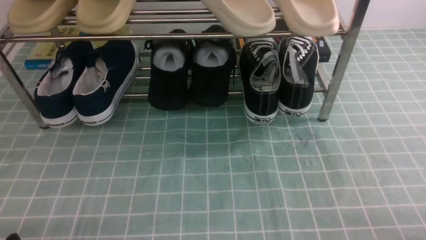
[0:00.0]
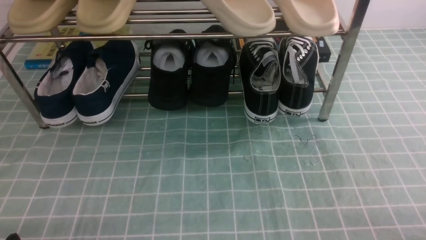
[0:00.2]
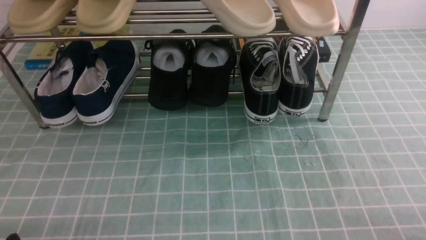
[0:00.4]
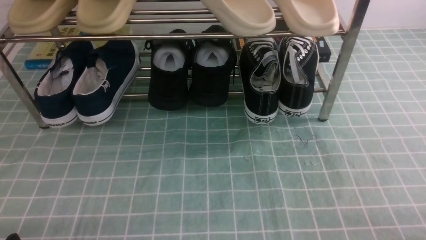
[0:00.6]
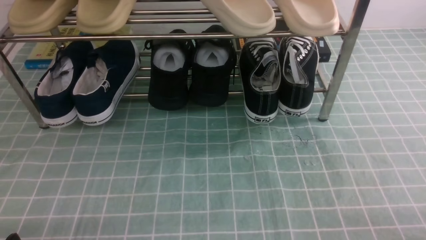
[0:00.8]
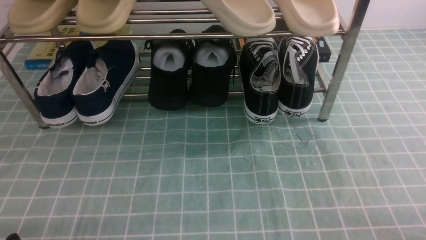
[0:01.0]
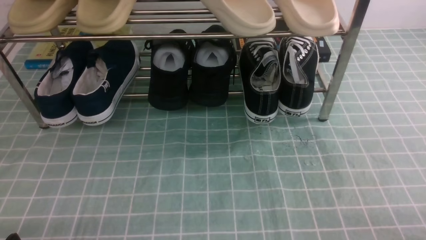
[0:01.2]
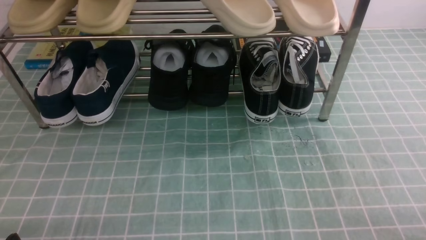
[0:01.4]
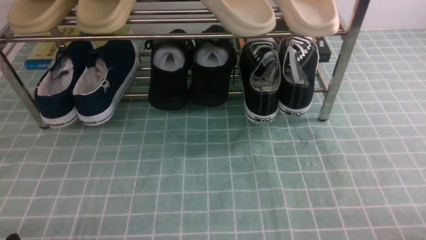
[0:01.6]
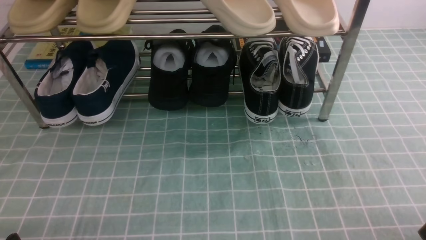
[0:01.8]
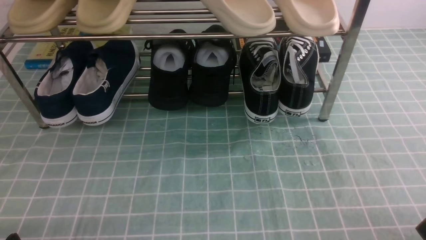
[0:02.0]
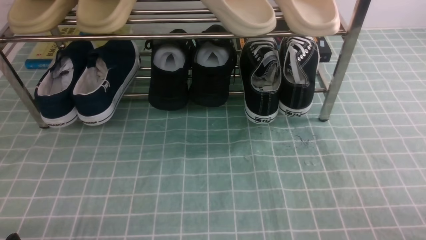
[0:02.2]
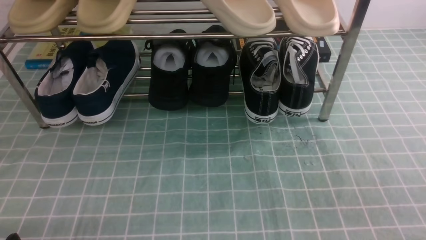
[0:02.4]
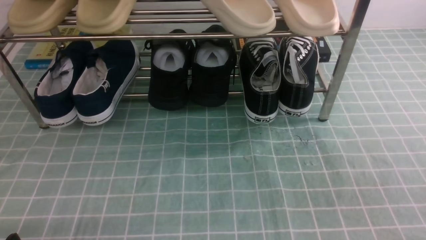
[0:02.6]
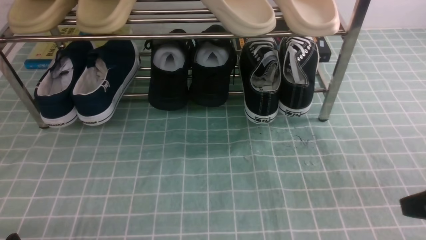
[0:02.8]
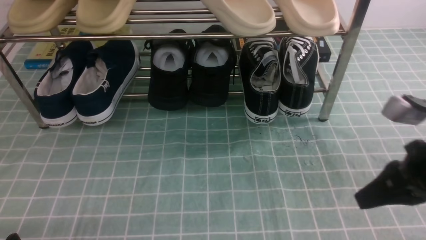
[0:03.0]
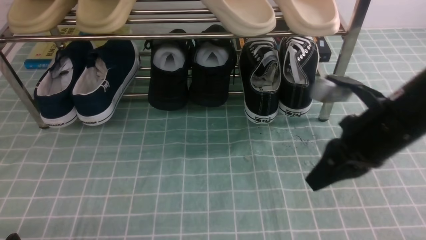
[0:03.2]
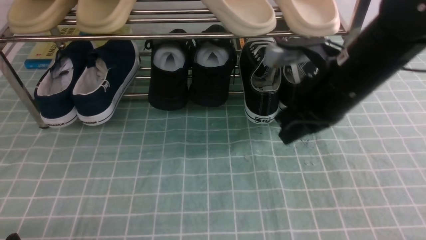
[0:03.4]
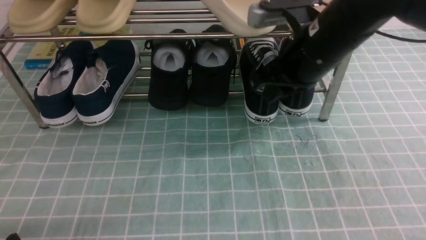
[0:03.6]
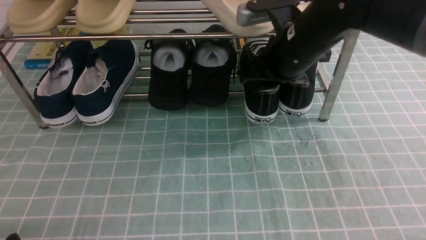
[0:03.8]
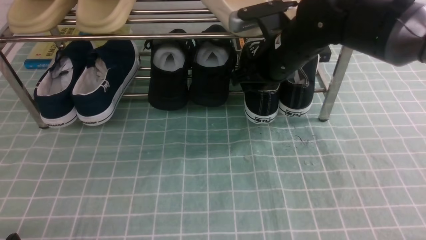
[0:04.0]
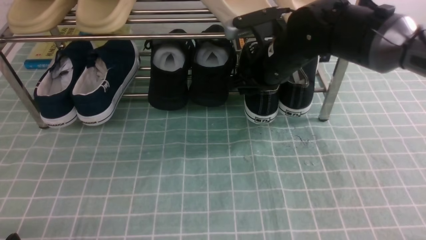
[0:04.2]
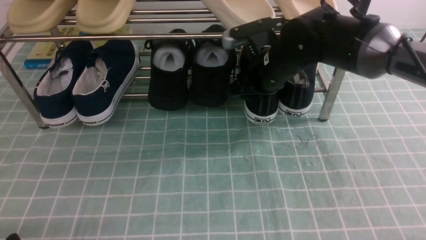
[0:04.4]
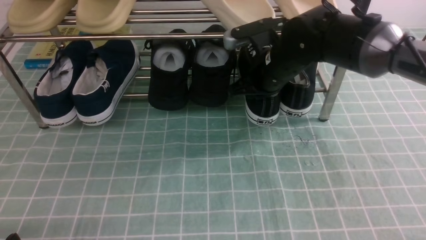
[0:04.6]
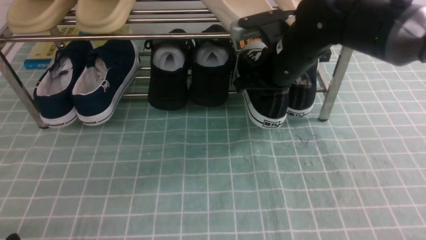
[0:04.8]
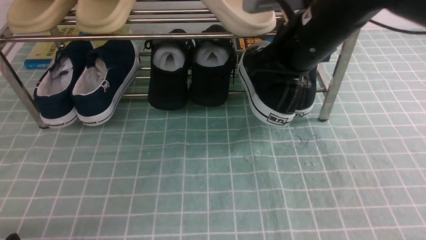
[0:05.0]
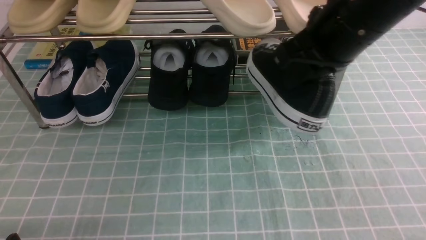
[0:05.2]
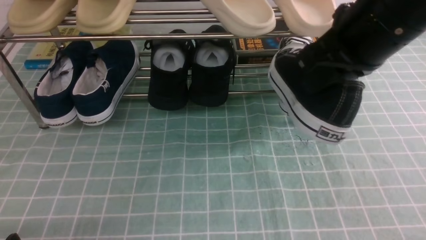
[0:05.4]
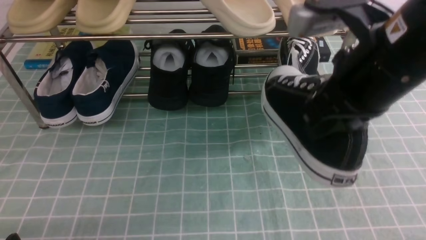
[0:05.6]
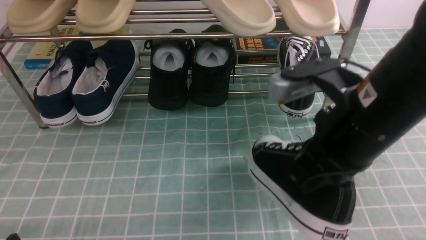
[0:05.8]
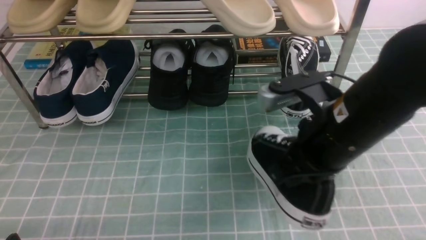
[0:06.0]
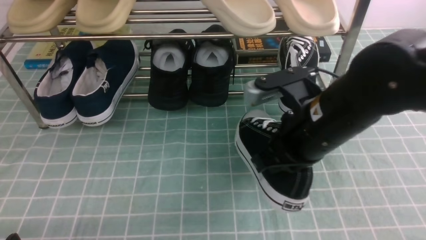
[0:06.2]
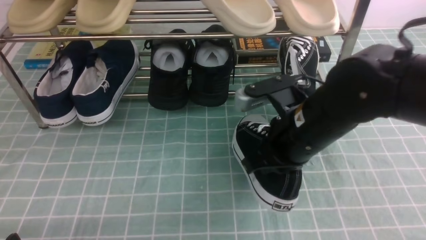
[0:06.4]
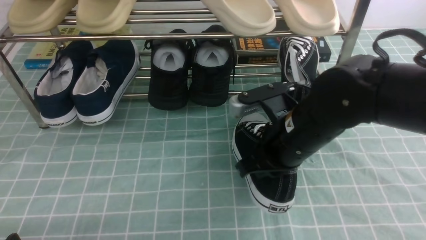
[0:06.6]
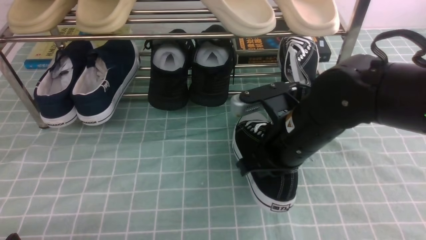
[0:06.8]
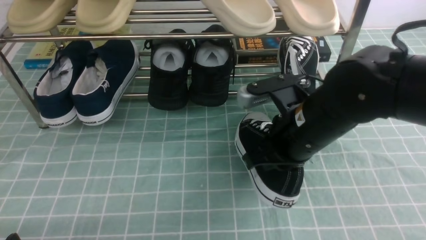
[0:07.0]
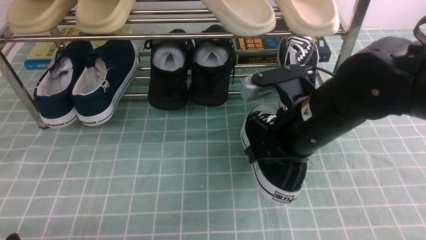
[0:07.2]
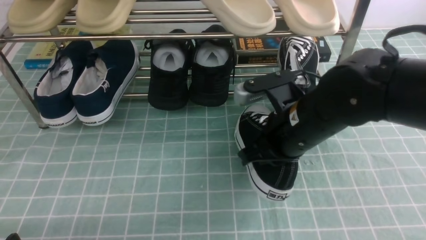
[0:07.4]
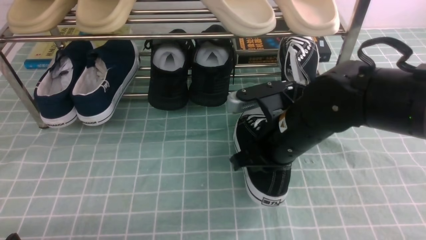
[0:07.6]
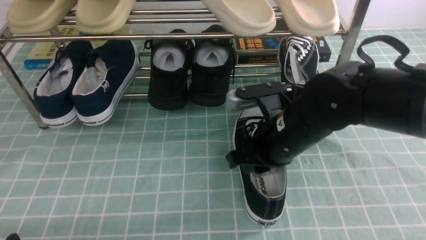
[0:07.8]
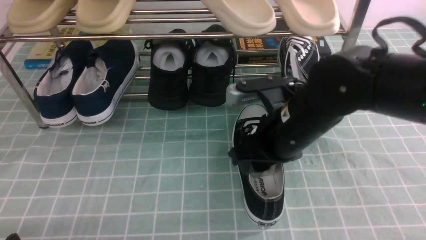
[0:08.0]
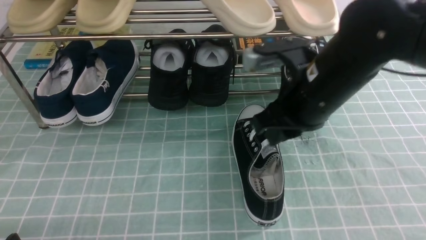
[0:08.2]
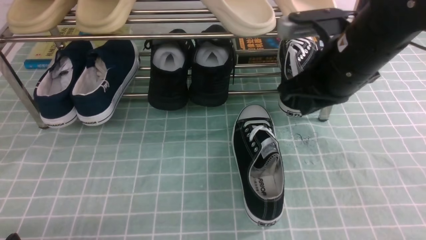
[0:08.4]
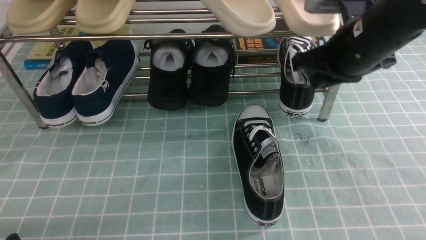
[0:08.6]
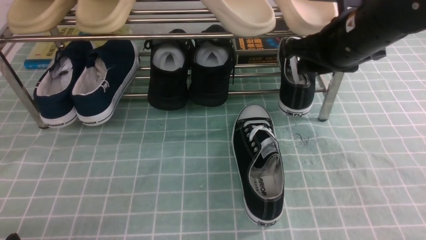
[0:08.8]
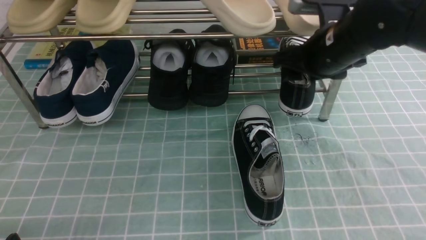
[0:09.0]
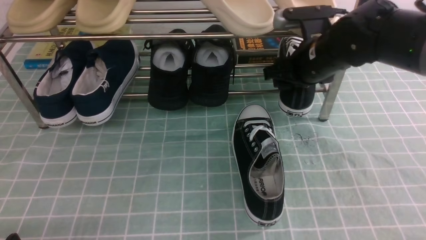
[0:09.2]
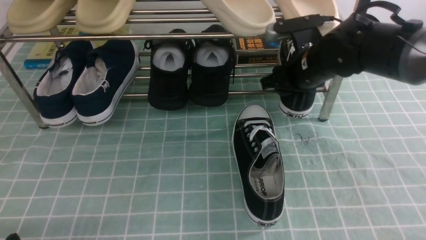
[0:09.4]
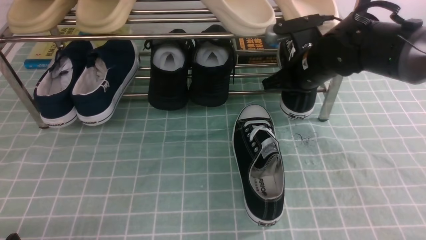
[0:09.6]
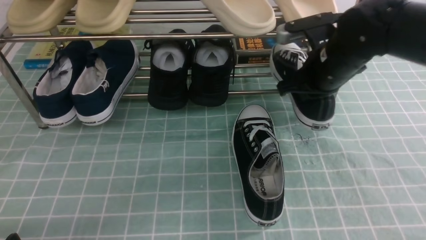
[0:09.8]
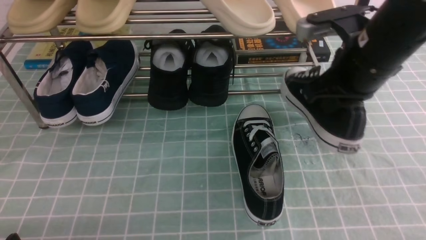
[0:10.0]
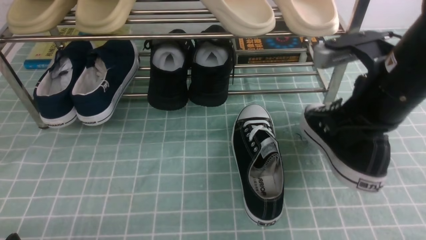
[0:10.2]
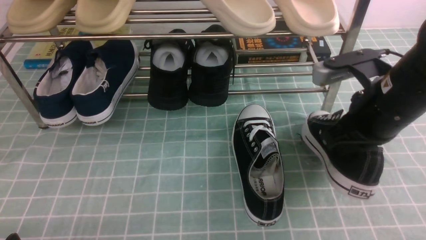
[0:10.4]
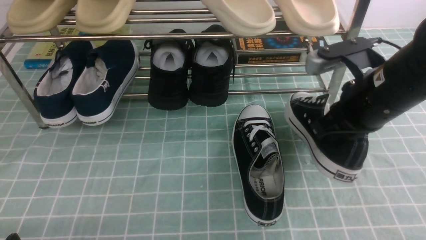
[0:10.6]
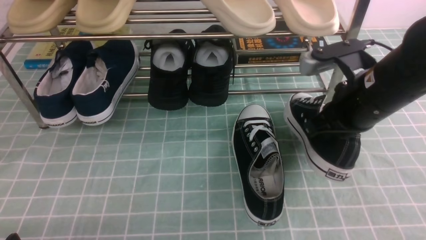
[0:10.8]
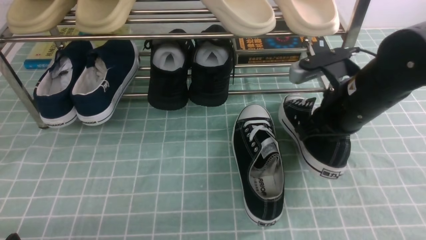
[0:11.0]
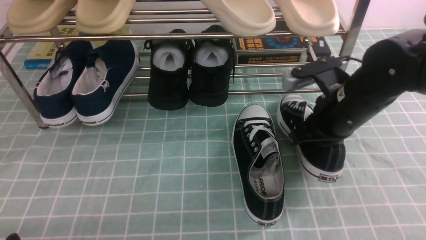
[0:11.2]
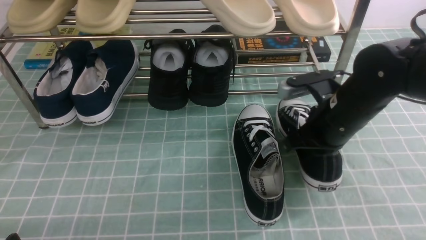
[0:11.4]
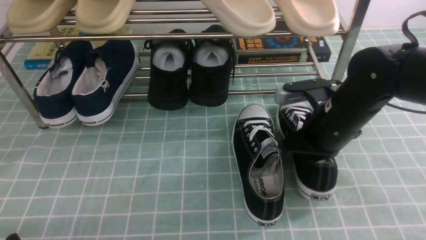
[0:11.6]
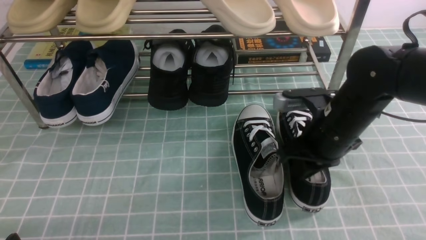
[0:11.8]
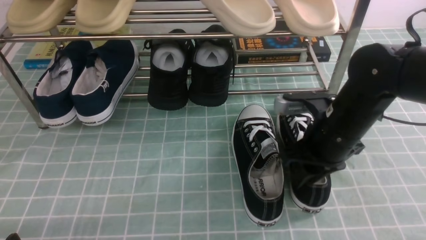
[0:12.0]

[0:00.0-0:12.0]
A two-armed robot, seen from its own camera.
Step, 0:00.0 to 0:04.6: use the right arm to clamp a shoe on the right side of the shoe rack.
Step, 0:04.8 to 0:08.0: use the right arm to take out the clamped shoe from the shoe rack and put it down.
Step, 0:08.2 to 0:09.6: use the right arm to clamp a shoe on the right side of the shoe rack.
Step, 0:09.8 to 0:11.8: use the right arm to take out the clamped shoe from the shoe rack and put it down.
0:01.6 to 0:03.0: The right gripper heads forward, upward and to the left, covering roughly 20 cm, and closes.
0:03.0 to 0:04.4: The right gripper travels forward and to the left by about 25 cm, and opens.
0:04.4 to 0:06.0: The right gripper shifts about 15 cm backward, and closes.
0:06.0 to 0:07.6: The right gripper travels downward by roughly 5 cm.
0:07.6 to 0:09.0: The right gripper goes some 15 cm forward, to the right and upward, and opens its fingers.
0:09.0 to 0:10.4: The right gripper moves backward, some 10 cm, and closes.
0:10.4 to 0:12.0: The right gripper is displaced downward by about 5 cm, and opens its fingers.

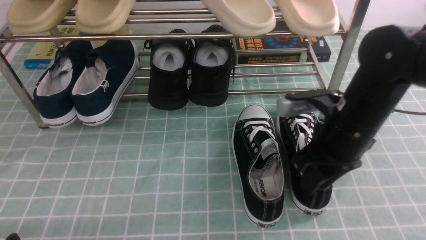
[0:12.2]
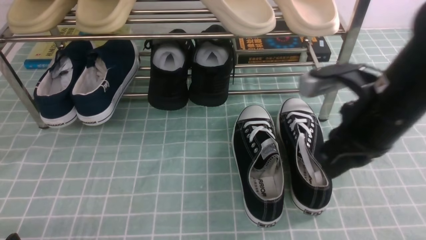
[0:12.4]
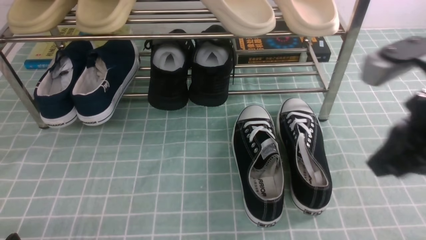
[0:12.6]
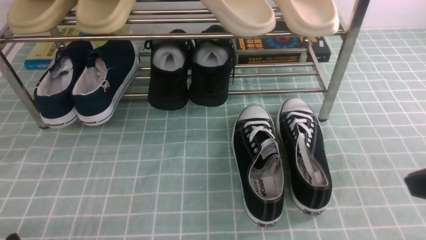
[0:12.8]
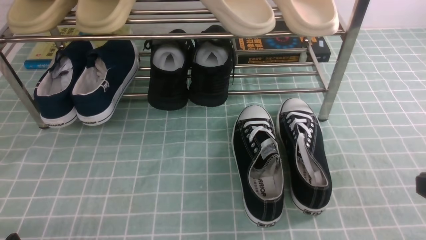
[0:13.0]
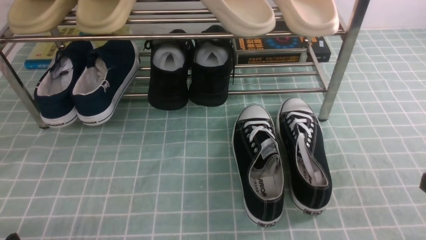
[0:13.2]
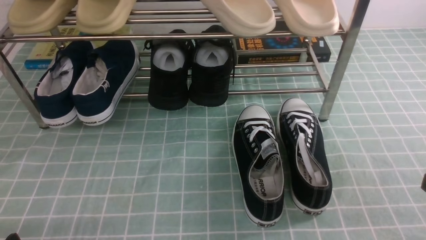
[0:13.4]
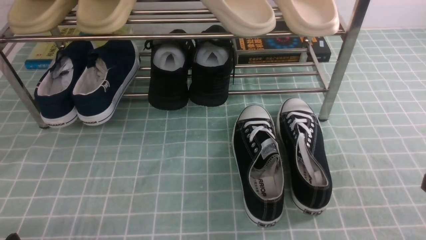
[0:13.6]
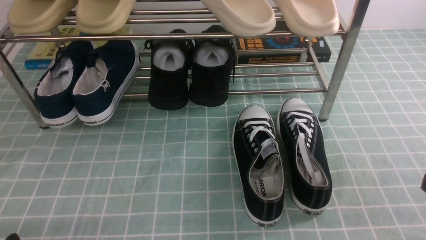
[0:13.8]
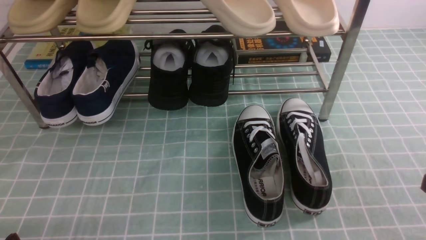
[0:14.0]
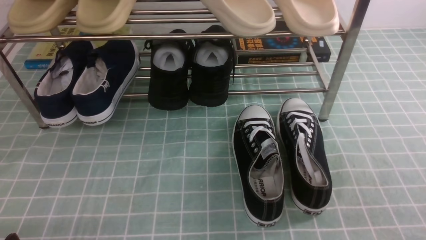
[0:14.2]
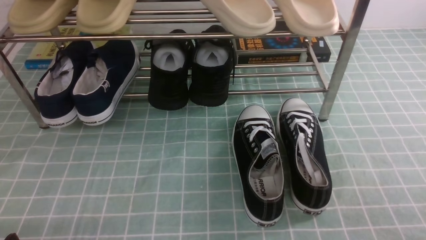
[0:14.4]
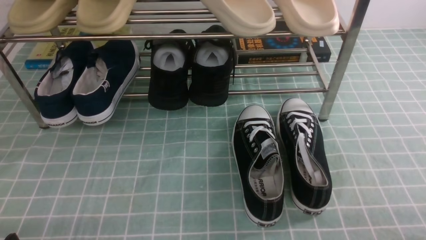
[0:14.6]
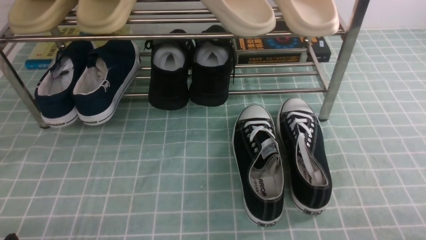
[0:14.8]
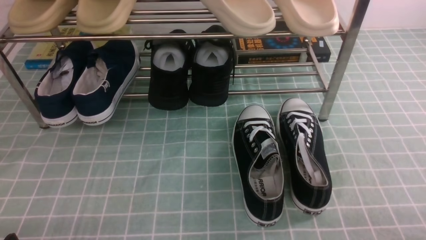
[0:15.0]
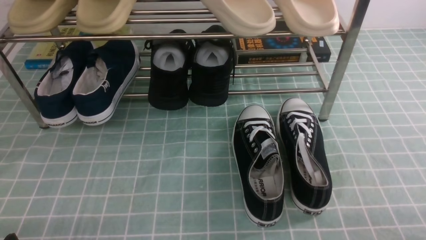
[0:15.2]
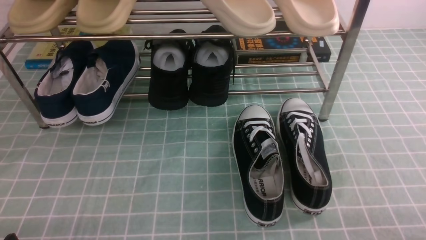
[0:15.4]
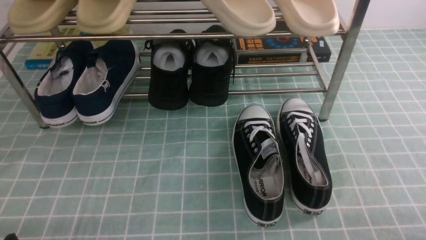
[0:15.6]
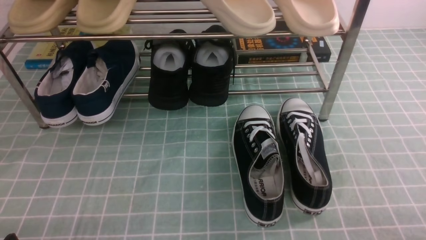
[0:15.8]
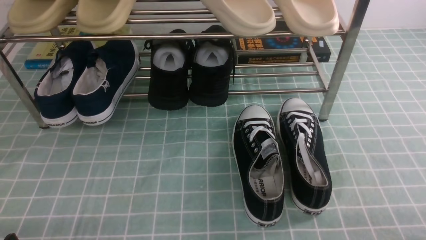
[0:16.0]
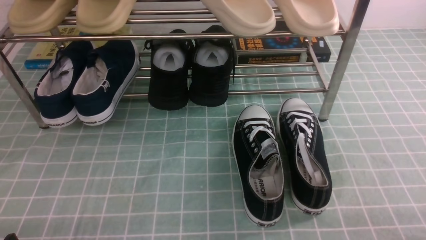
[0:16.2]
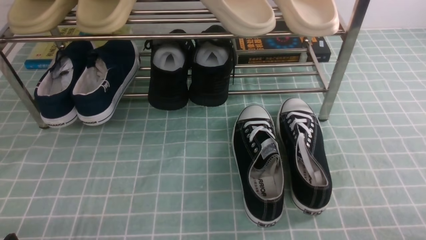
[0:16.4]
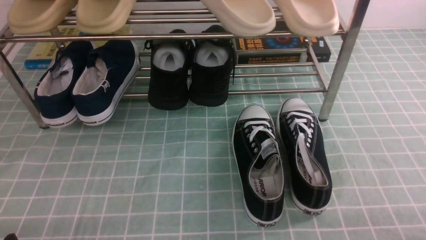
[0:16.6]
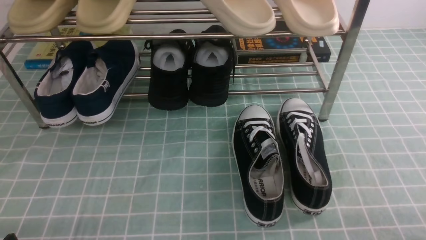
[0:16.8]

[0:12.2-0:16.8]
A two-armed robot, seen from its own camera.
0:12.2 to 0:13.8: The right gripper travels backward and to the right by about 25 cm, and closes its fingers.
0:15.2 to 0:16.8: The two grippers keep their place.
